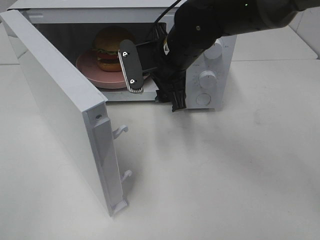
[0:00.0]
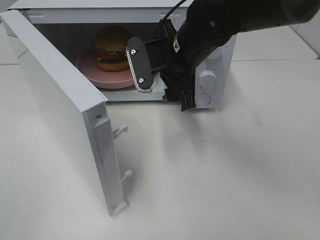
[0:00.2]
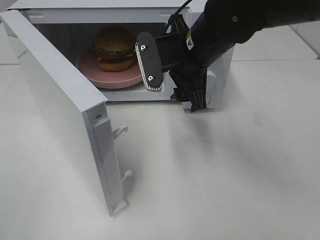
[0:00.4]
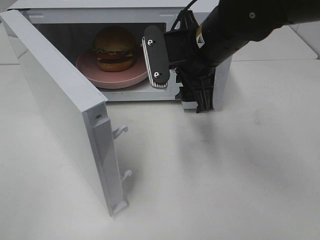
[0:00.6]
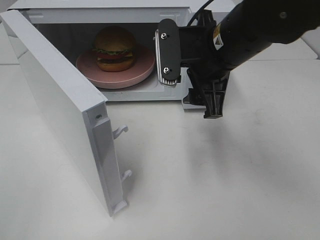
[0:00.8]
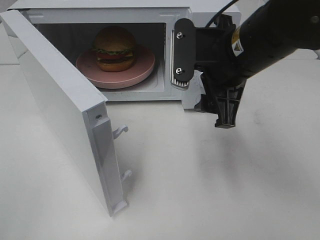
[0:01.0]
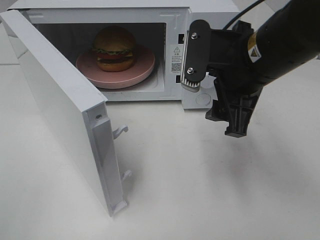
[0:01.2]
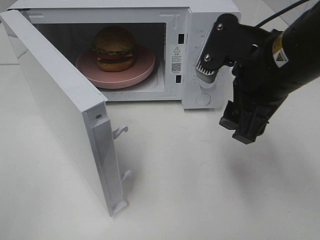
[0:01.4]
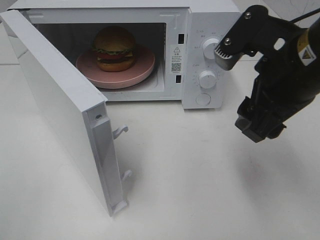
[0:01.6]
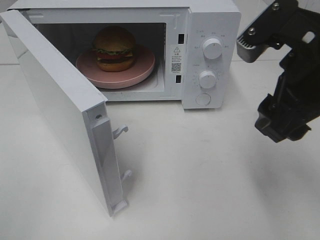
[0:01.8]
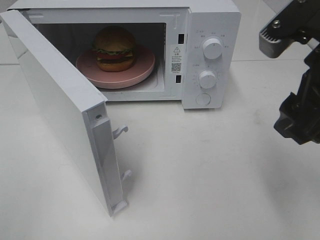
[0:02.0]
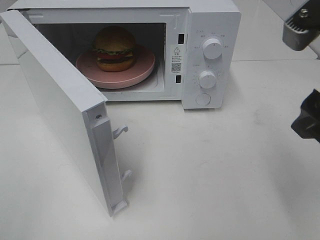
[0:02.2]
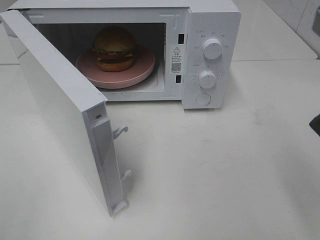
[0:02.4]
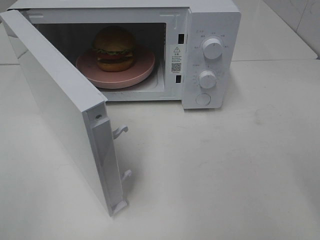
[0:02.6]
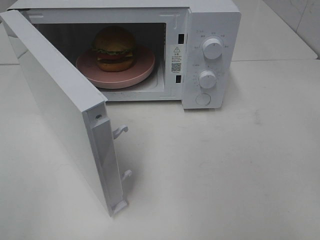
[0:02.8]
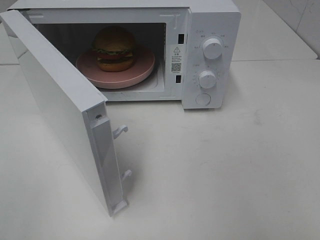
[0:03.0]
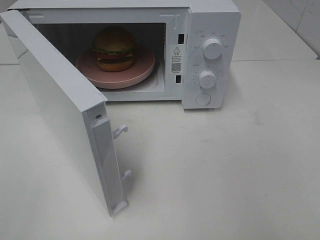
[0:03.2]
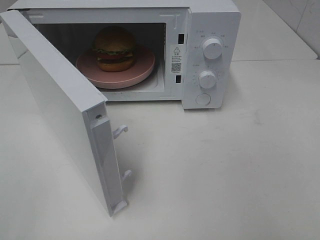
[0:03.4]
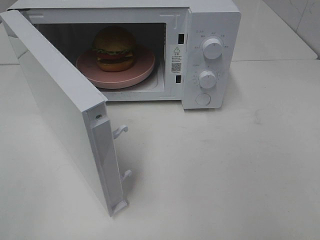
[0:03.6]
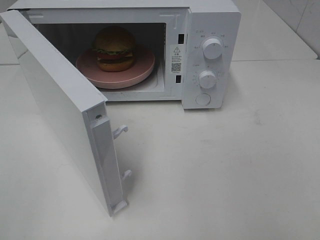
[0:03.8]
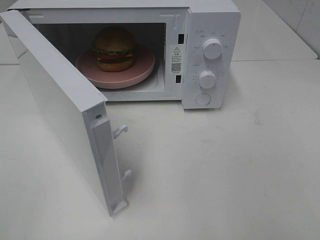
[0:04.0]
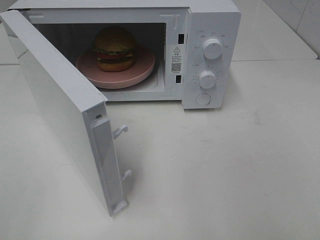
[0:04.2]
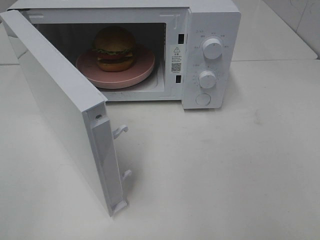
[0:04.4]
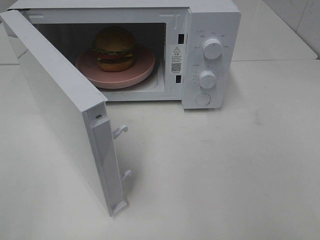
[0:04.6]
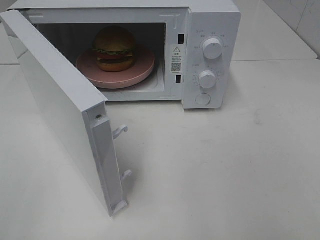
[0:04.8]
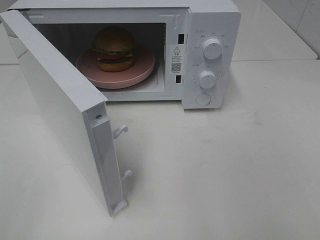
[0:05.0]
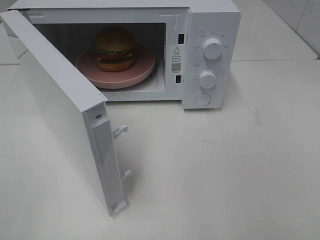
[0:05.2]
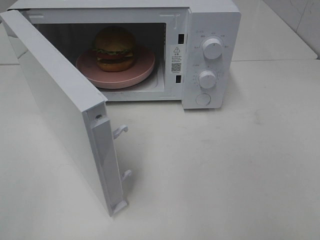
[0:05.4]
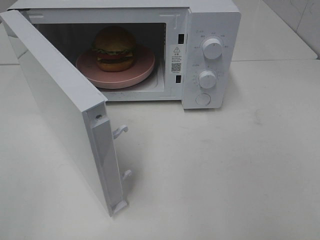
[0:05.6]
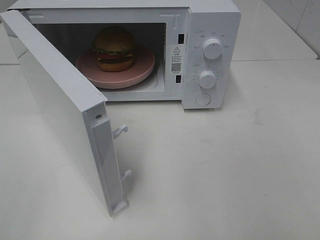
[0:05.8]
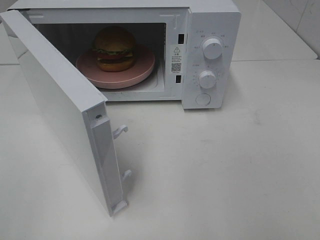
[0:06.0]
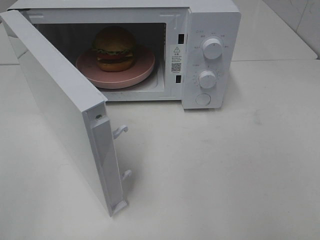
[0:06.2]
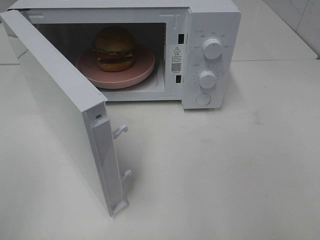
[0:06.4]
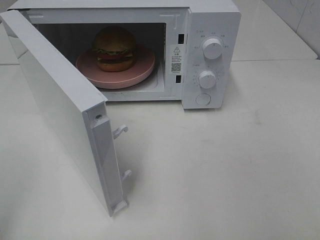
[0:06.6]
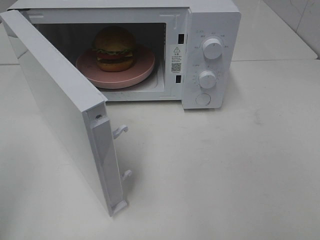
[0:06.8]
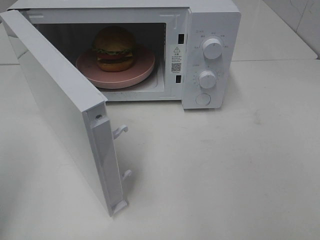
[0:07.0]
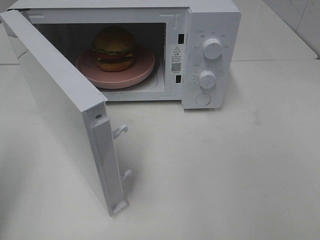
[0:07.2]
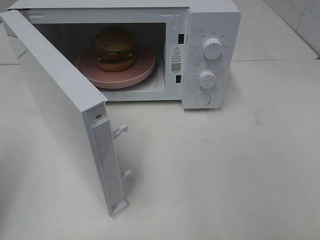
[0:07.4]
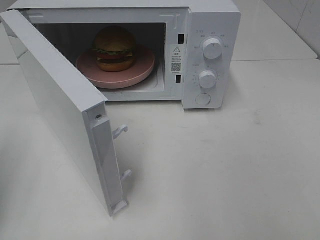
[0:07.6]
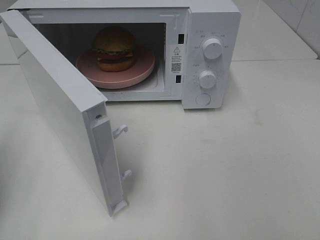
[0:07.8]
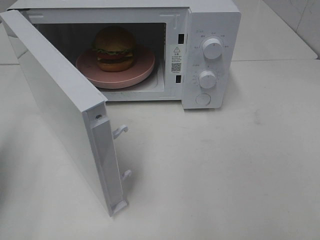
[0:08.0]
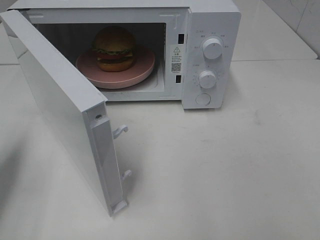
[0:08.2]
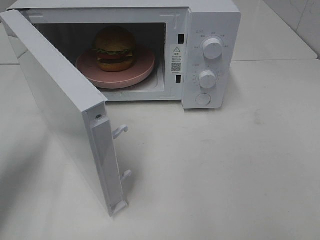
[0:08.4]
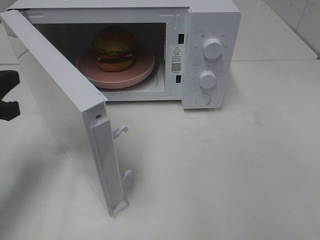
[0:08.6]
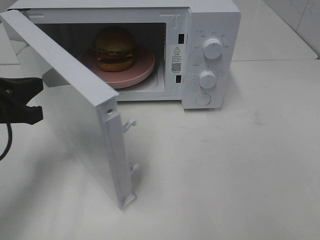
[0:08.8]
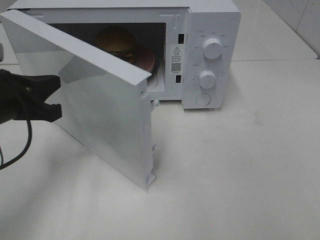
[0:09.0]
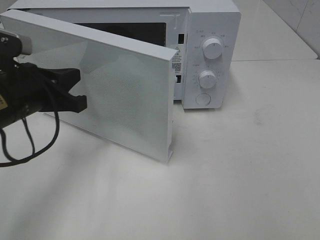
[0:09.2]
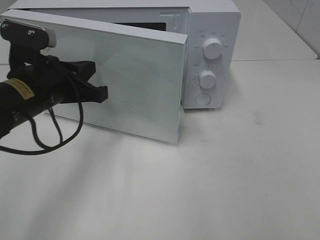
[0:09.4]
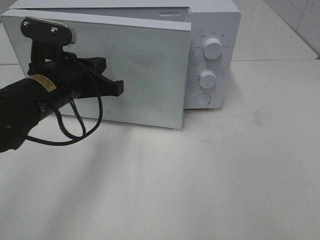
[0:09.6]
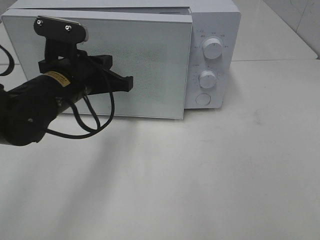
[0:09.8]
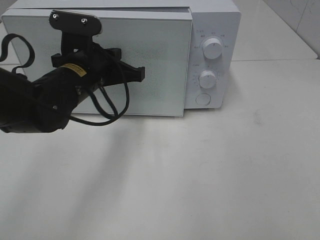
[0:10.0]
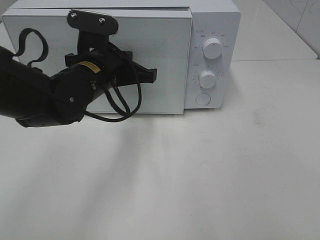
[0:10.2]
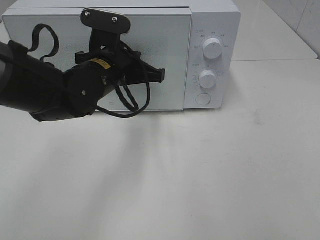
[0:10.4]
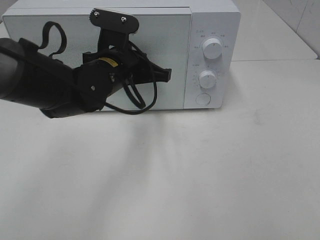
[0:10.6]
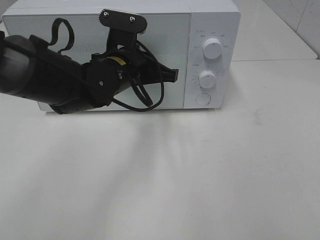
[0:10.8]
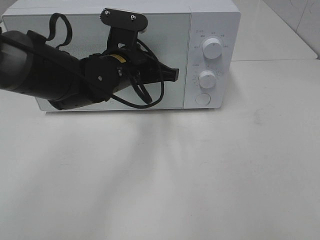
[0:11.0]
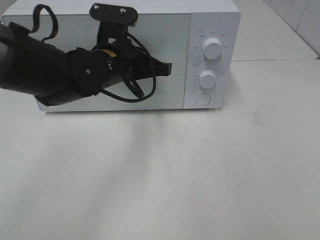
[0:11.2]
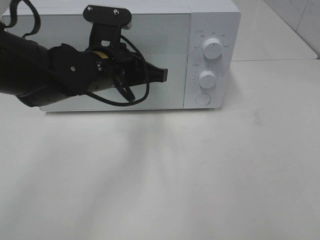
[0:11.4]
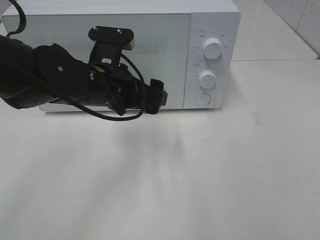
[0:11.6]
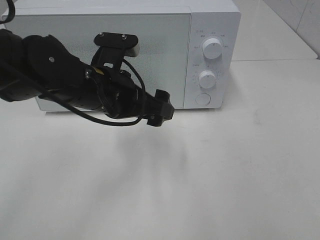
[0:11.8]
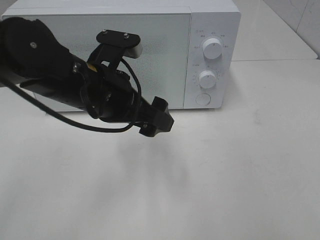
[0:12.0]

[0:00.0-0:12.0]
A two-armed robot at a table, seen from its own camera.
Task of the whole recording: Heat the burger.
Step, 0:00.0 to 0:12.0: Left hand: close the microwave door.
0:00.0 to 0:01.6: The right gripper heads backward, to the right and upward, covering roughly 20 cm.
0:01.6 to 0:03.0: The right gripper is displaced to the right, backward and upward by approximately 20 cm.
0:04.4 to 0:06.0: Both grippers stay about where they are.
0:07.6 to 0:09.0: The left gripper moves to the right, forward and downward, about 15 cm.
0:09.0 to 0:10.4: The left gripper heads to the right and forward, covering approximately 15 cm.
0:10.4 to 0:12.0: The left gripper goes some 10 cm backward, and opens its fingers.

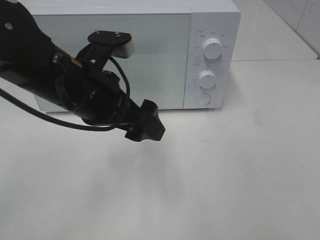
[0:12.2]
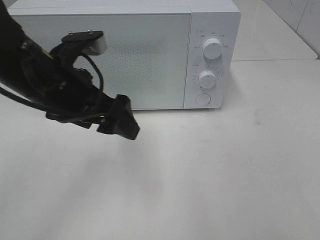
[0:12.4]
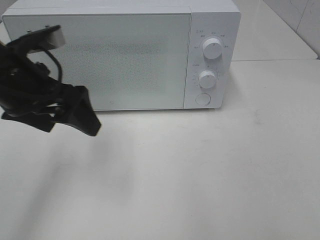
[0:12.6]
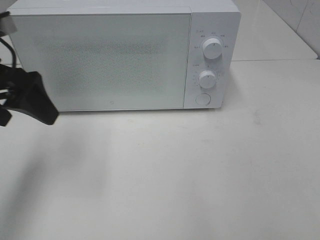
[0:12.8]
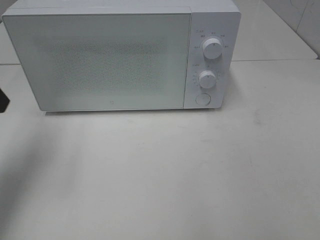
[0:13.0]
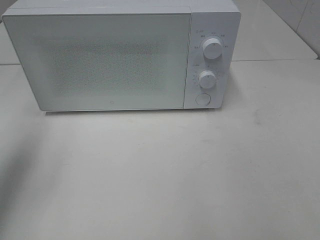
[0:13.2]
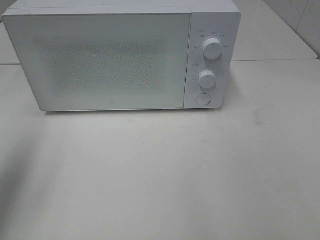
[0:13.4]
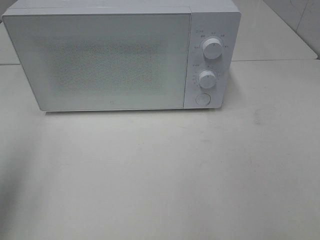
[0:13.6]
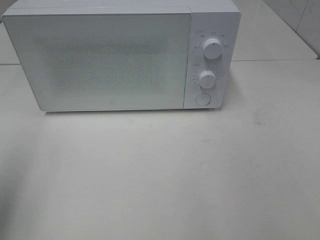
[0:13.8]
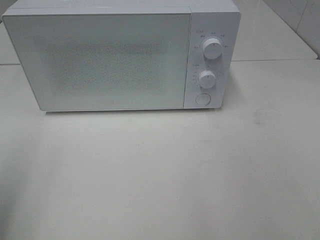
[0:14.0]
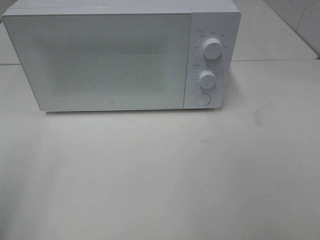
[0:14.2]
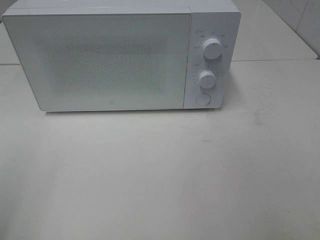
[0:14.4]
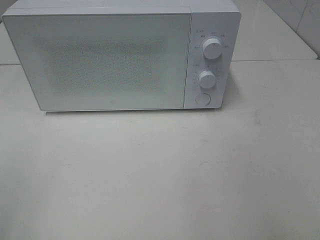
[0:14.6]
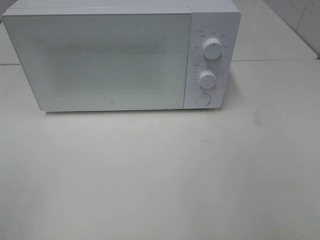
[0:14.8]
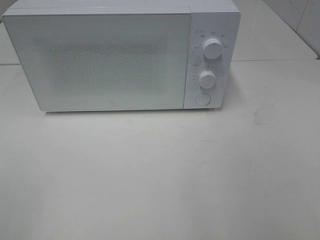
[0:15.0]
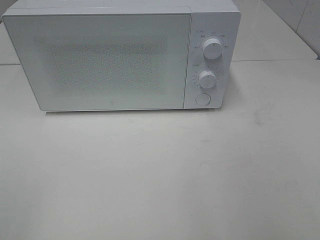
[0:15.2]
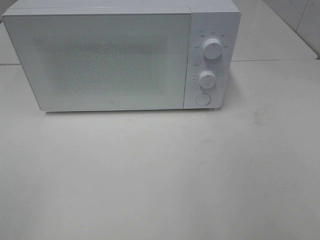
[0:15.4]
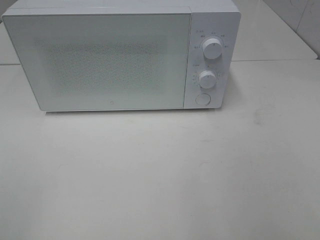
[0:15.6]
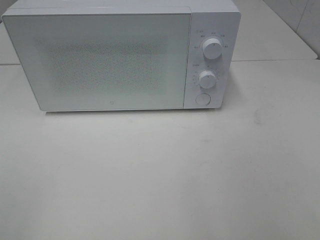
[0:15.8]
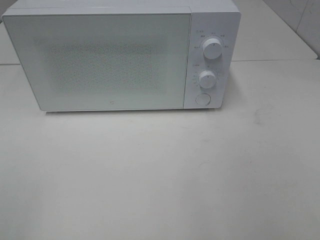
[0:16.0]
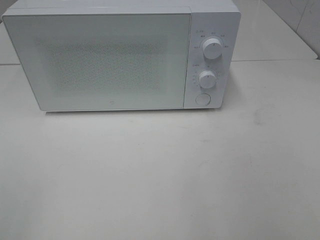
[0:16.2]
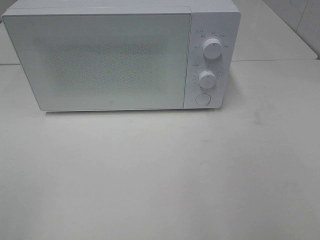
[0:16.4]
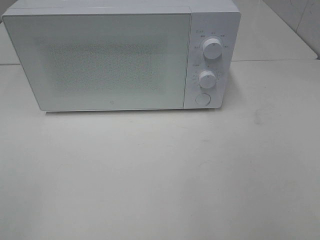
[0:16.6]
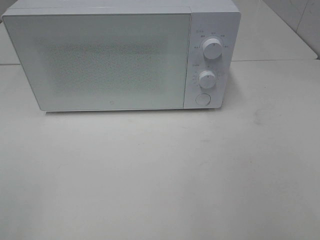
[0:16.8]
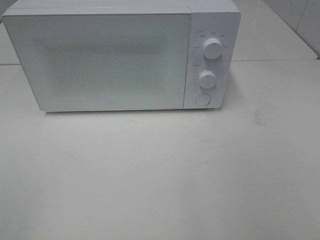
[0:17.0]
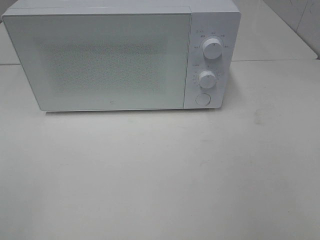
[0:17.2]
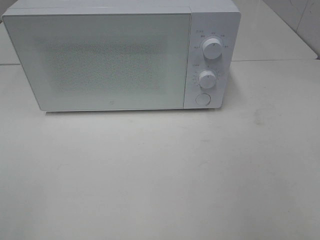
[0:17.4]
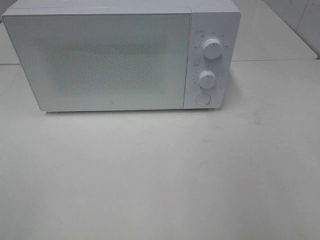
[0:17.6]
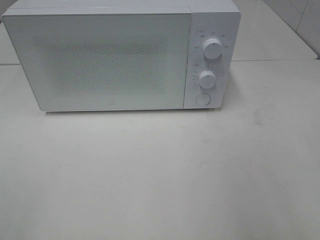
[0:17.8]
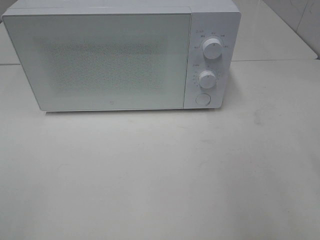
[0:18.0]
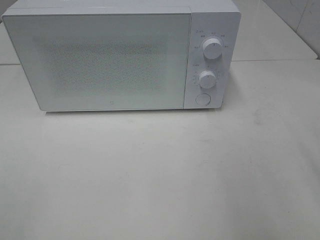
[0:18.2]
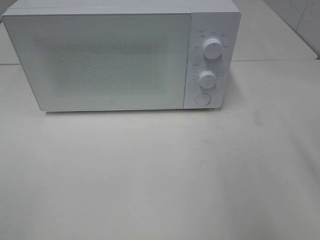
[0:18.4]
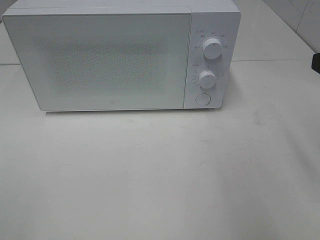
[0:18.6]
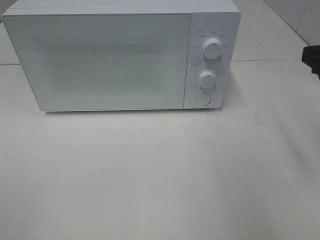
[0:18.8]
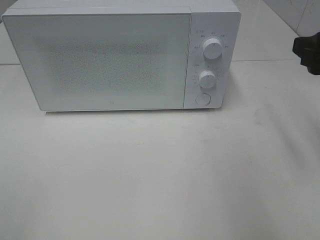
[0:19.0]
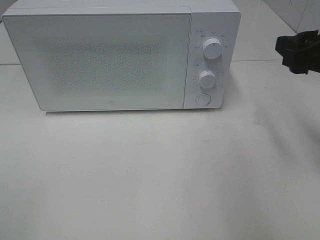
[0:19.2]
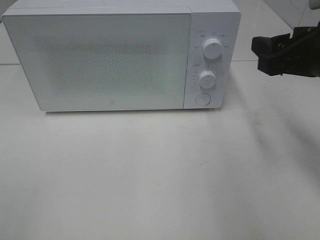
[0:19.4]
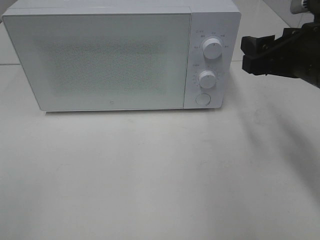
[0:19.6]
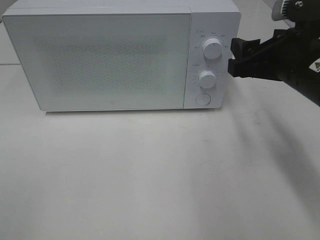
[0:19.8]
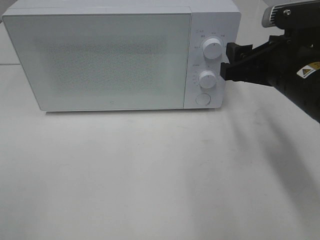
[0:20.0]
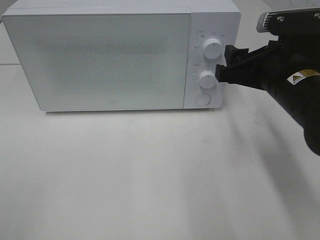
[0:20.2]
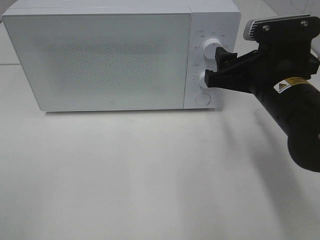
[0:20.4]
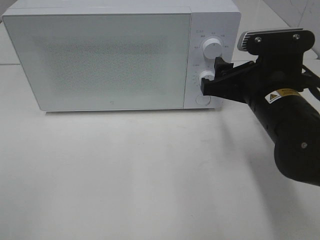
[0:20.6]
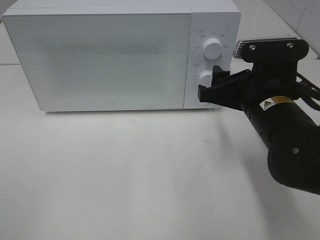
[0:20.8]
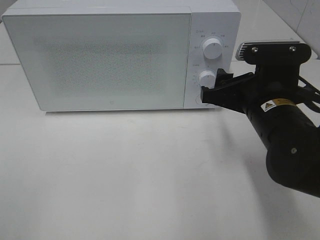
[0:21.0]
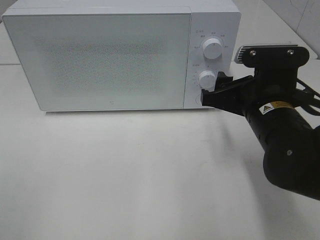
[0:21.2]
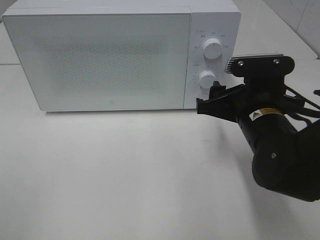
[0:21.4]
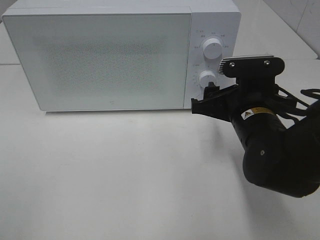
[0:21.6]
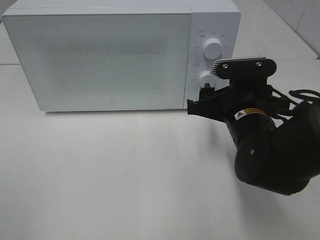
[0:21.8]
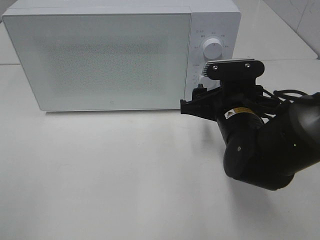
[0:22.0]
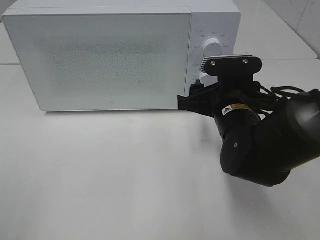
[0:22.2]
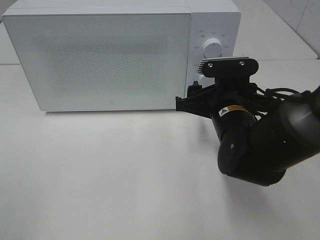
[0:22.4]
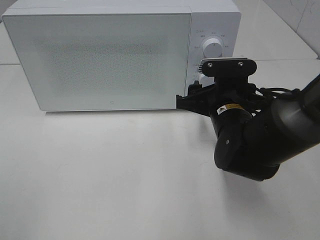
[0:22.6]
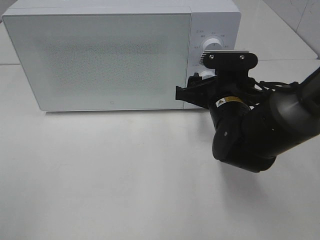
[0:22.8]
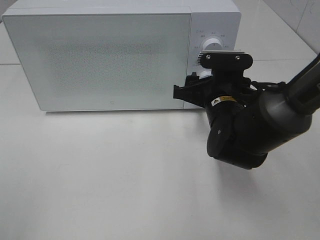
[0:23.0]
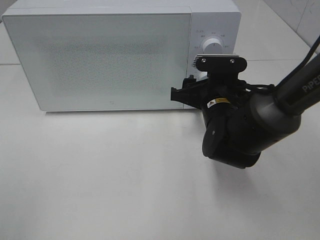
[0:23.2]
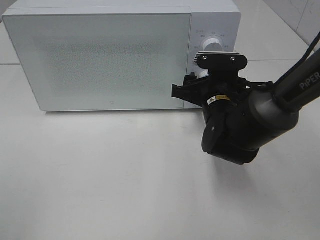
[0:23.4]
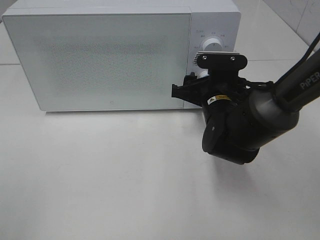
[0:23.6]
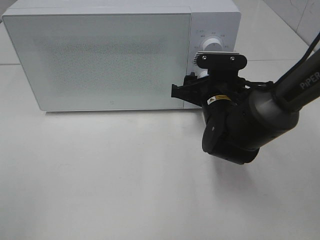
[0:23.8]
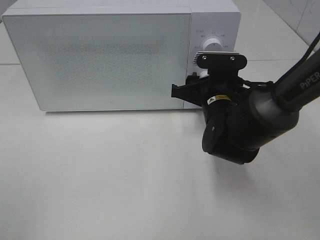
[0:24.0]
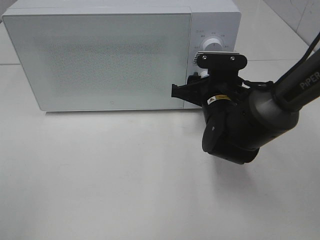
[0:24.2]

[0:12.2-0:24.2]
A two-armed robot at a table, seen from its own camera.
Task of the whole recording: Heat the burger.
0:12.2 to 0:13.8: The left gripper is displaced to the left, backward and upward by about 25 cm.
0:13.8 to 0:15.2: The left gripper travels backward by approximately 15 cm.
0:15.2 to 0:16.6: Neither gripper changes place.
0:18.2 to 0:19.8: The right gripper heads forward, to the left and downward, covering some 15 cm.
0:19.8 to 0:21.2: The right gripper goes about 5 cm downward.
0:21.2 to 0:22.6: The right gripper ends up about 5 cm from where it was.
0:22.6 to 0:24.2: The grippers move only a little.
